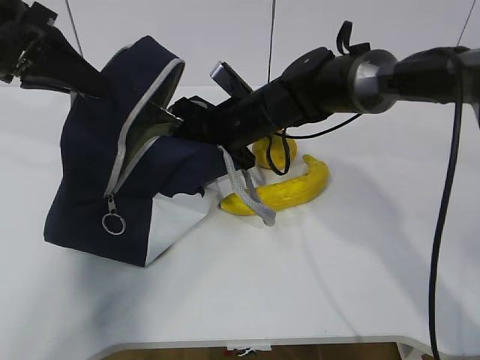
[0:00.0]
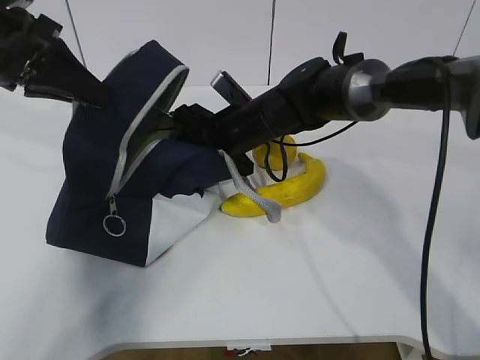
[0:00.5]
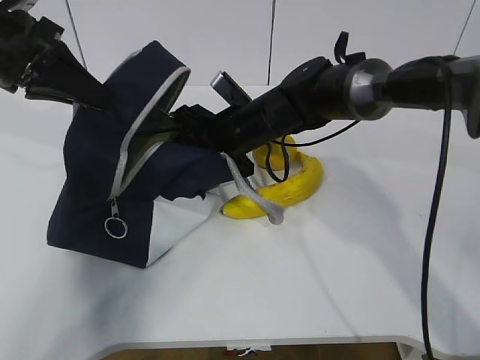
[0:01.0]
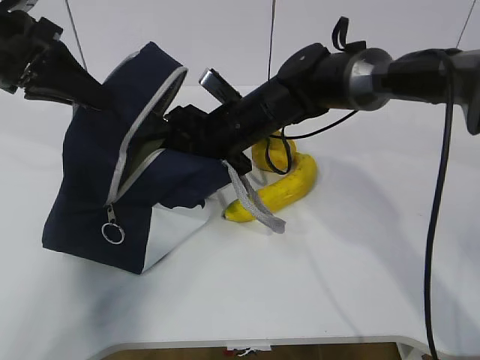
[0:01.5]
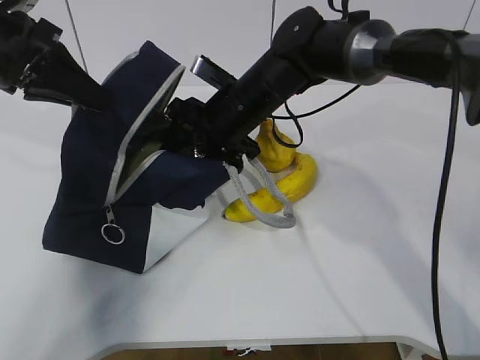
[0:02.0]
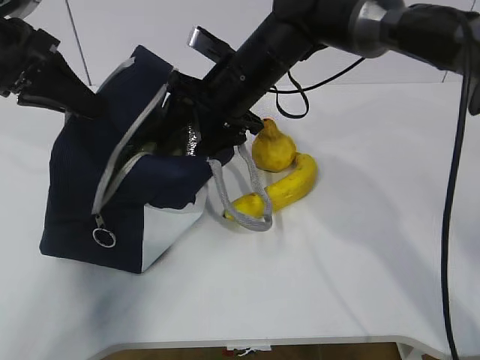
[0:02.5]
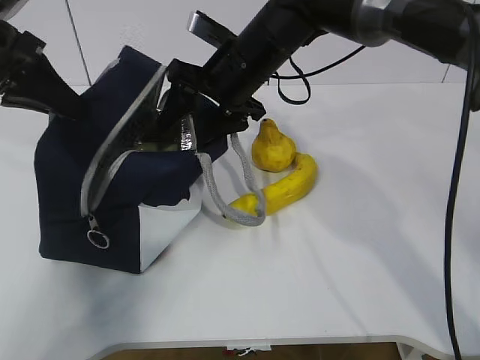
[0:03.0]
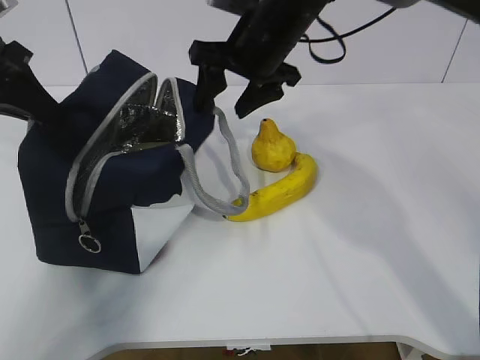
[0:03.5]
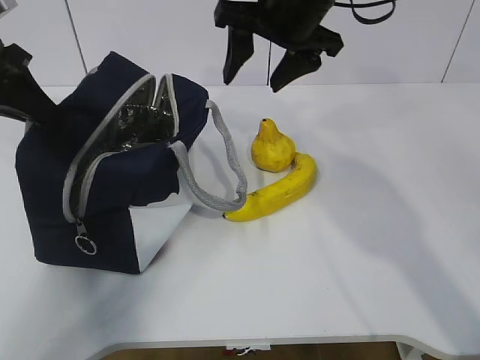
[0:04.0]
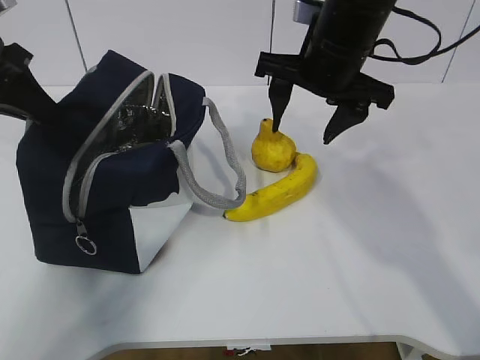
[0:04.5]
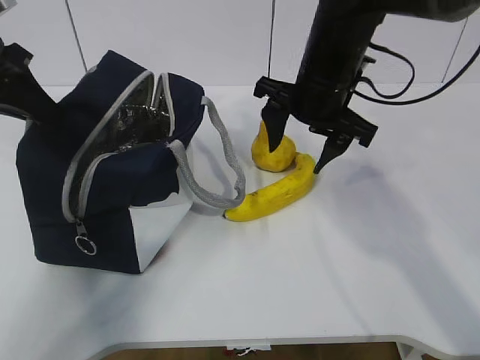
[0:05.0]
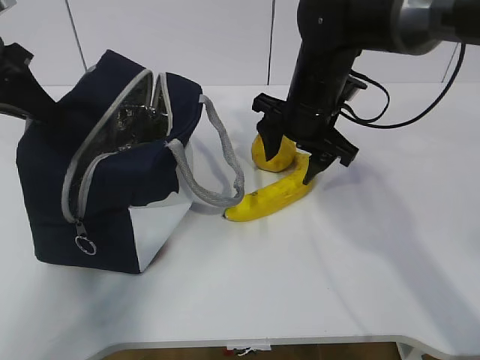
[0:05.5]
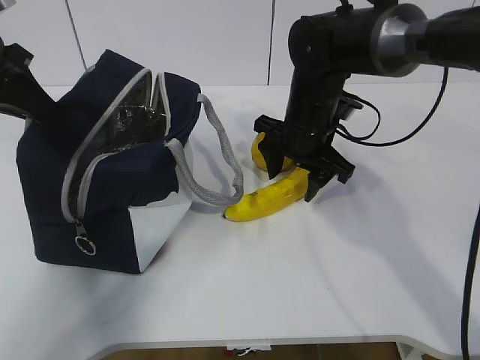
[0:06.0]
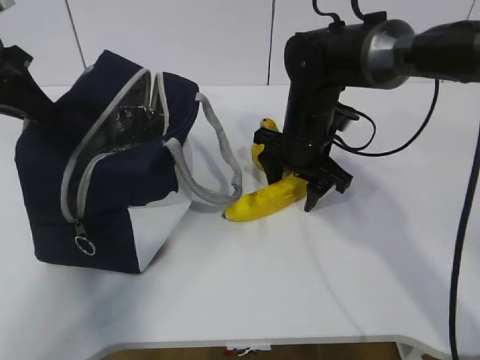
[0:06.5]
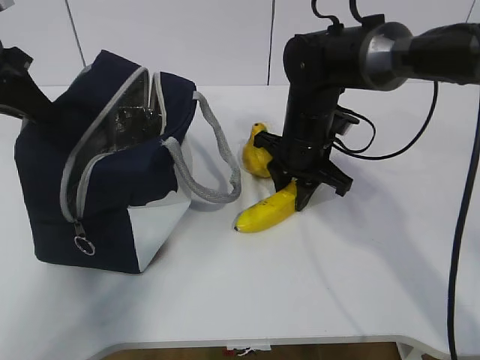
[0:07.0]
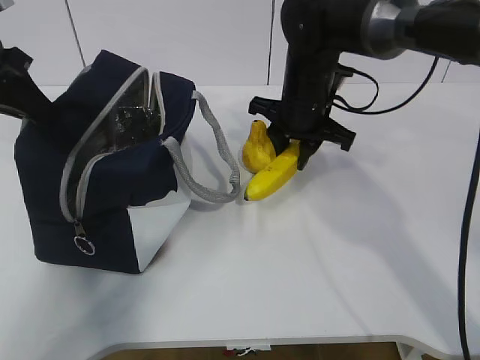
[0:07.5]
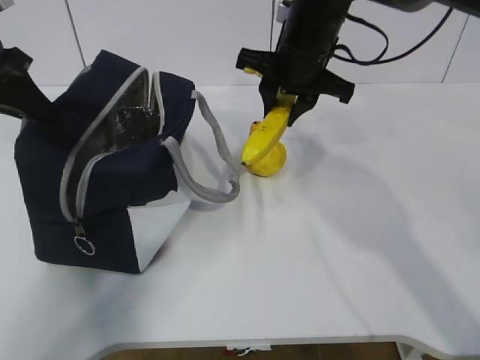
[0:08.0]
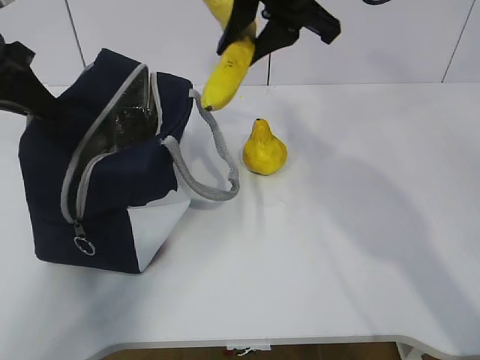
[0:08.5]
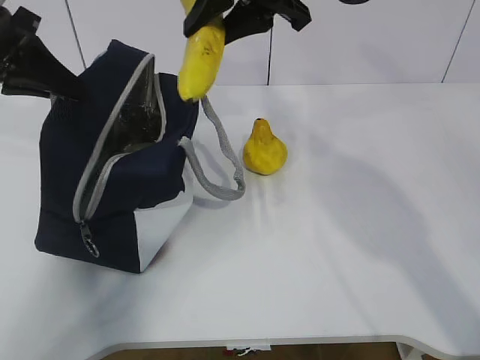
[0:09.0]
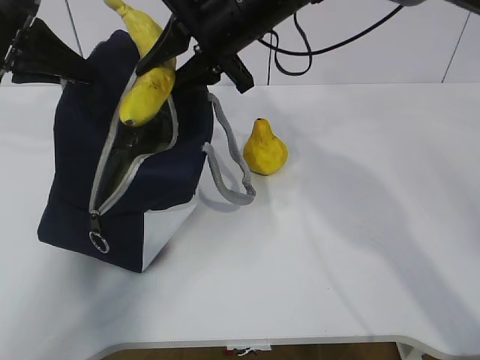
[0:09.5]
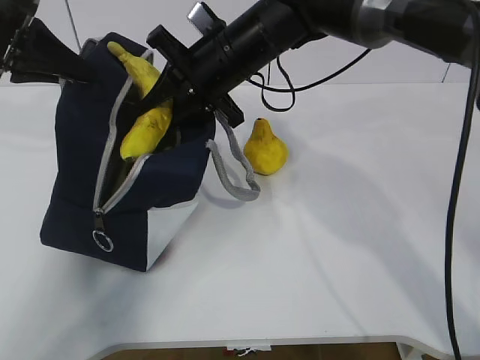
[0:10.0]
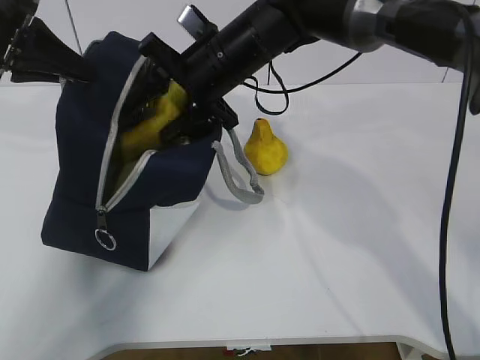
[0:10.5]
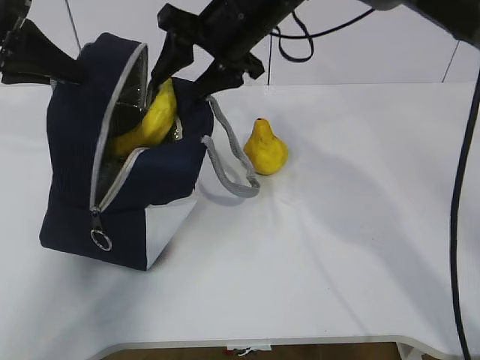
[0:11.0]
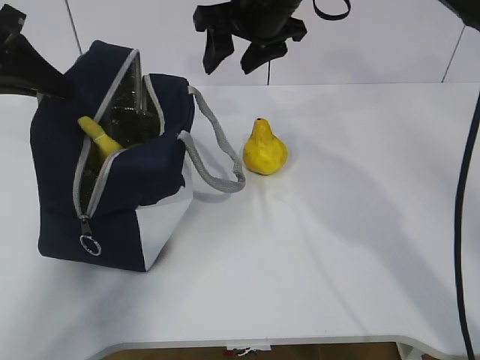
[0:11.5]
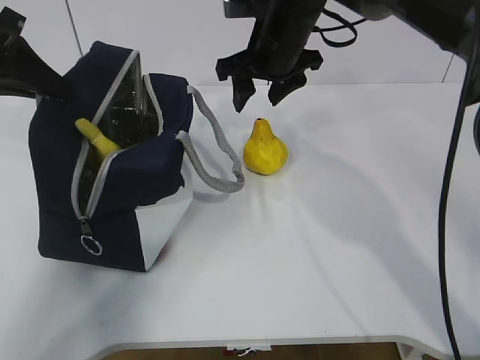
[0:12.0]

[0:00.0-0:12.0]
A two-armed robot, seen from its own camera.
Step, 0:00.0 to 0:02.5: Grab the banana with your right hand.
Step, 0:03.0 to 0:06.5: Place it into the bag with your right hand.
Step, 0:07.0 to 0:08.0: Grab the pear with your right hand.
Step, 0:08.5 to 0:10.0: Secure the lunch bag with your left hand.
Step, 0:10.5 to 0:11.0: Grab the lunch bag with your right hand.
0:02.0 to 0:04.0: The right gripper travels upward by some 15 cm.
0:04.0 to 0:06.0: The right gripper travels downward by about 15 cm.
0:06.0 to 0:08.0: The right gripper is displaced upward by approximately 10 cm, and closes its fingers.
0:08.0 to 0:10.0: The right gripper travels to the left by about 10 cm, and moves some 10 cm upward and comes back.
0:10.0 to 0:12.0: The right gripper travels to the right by roughly 5 cm, and opens.

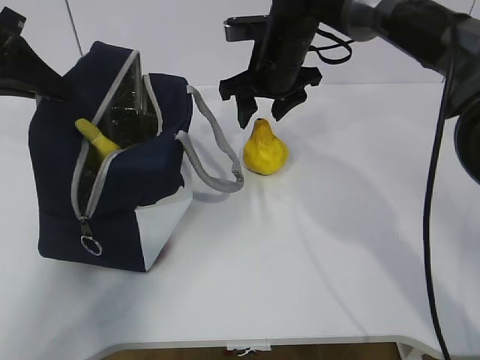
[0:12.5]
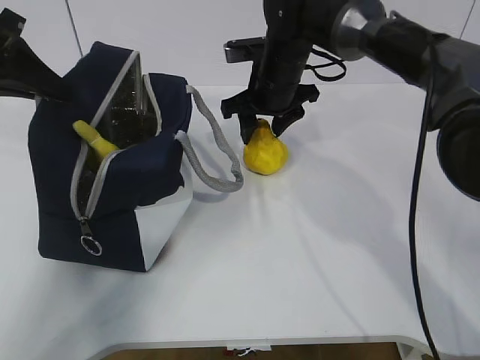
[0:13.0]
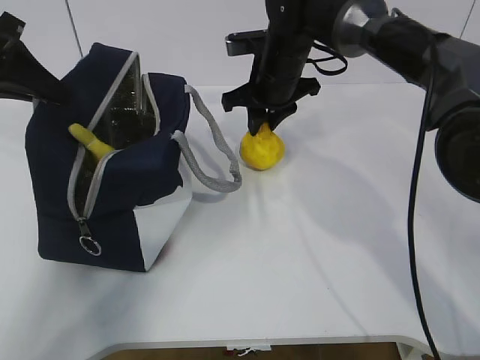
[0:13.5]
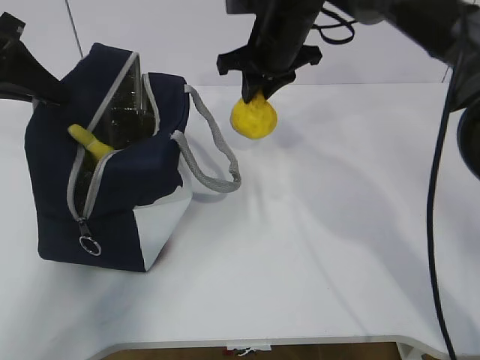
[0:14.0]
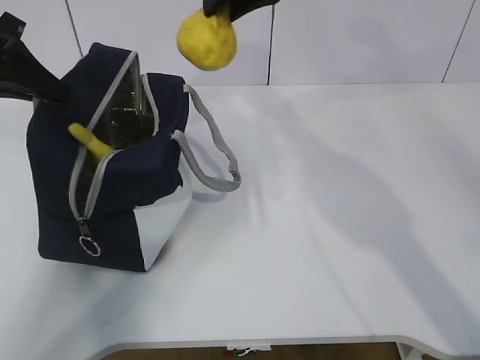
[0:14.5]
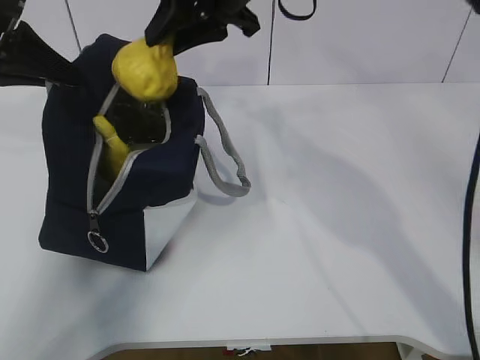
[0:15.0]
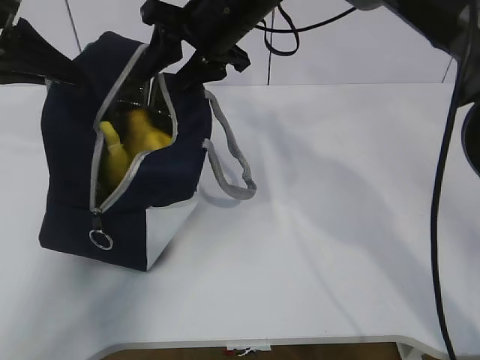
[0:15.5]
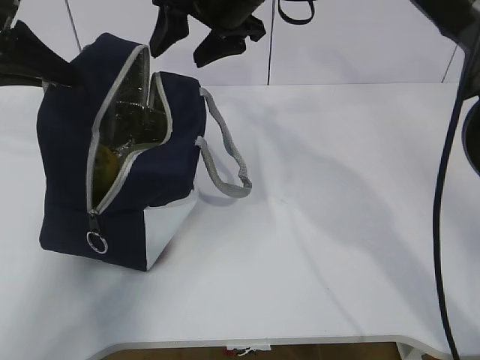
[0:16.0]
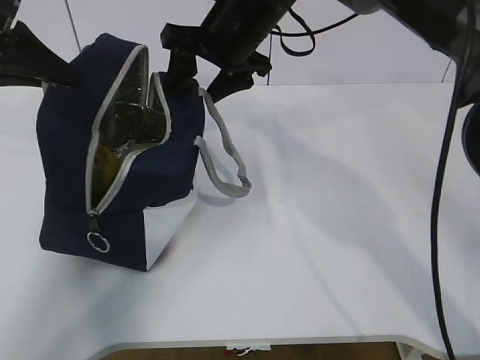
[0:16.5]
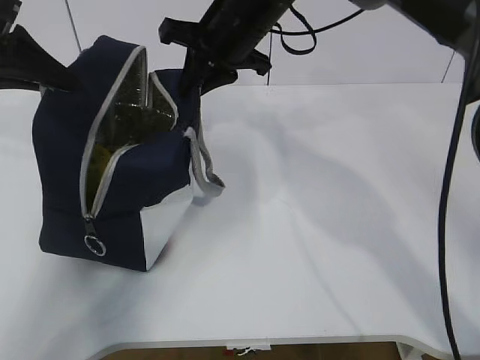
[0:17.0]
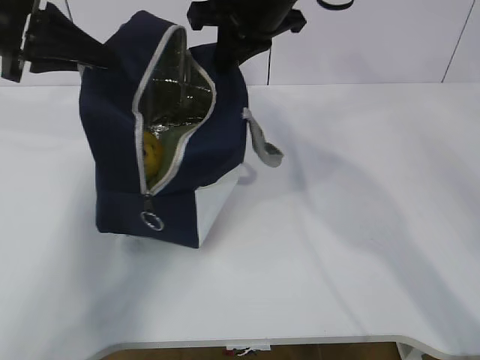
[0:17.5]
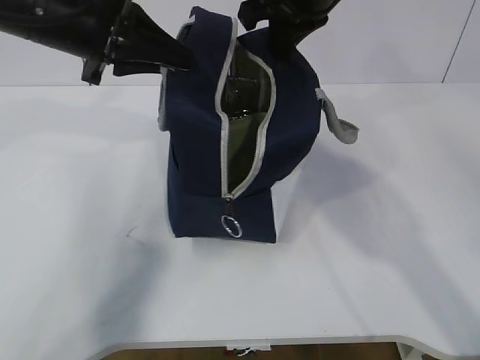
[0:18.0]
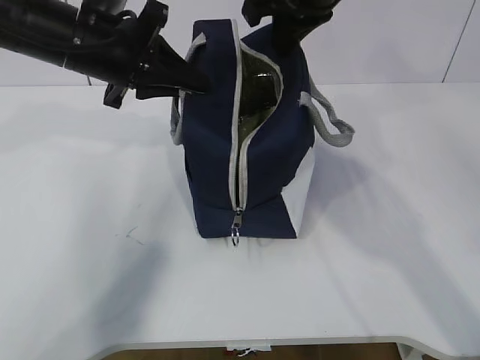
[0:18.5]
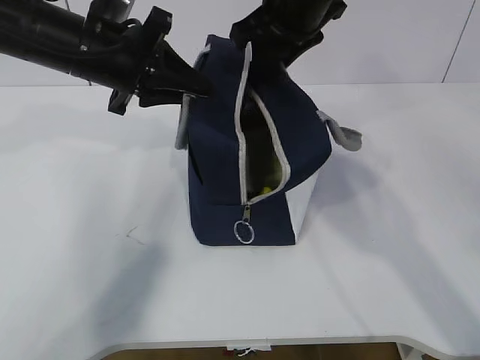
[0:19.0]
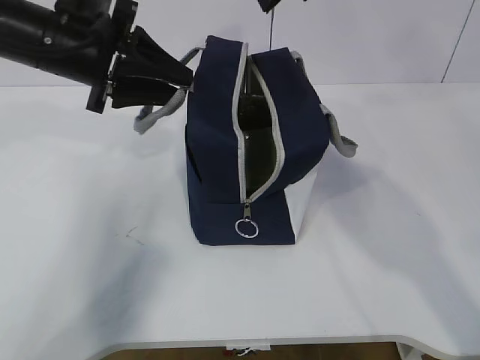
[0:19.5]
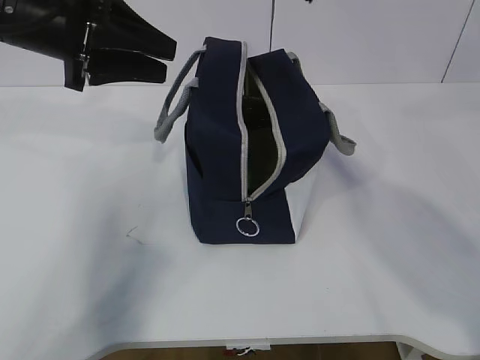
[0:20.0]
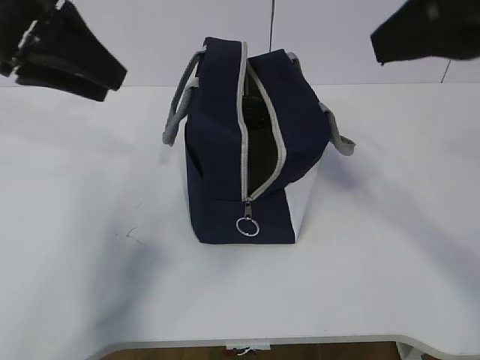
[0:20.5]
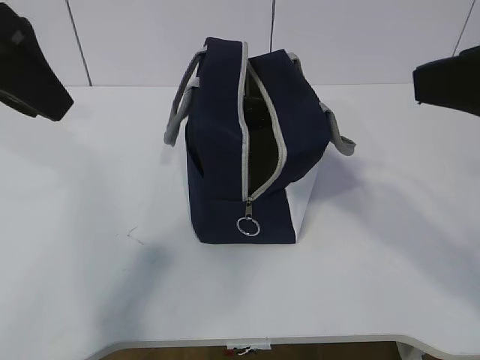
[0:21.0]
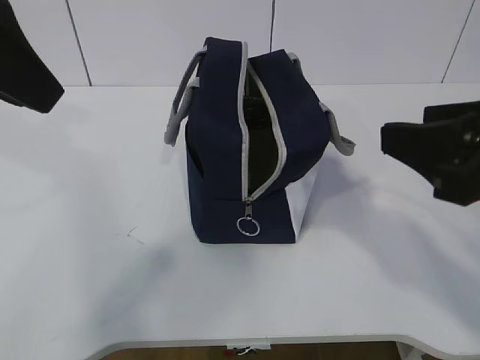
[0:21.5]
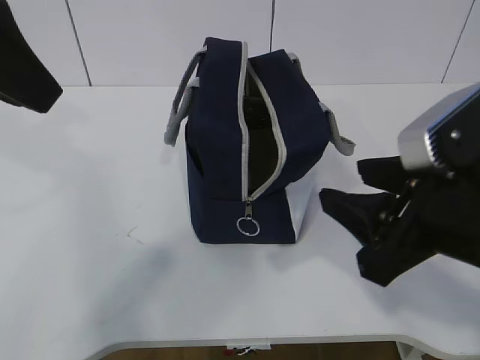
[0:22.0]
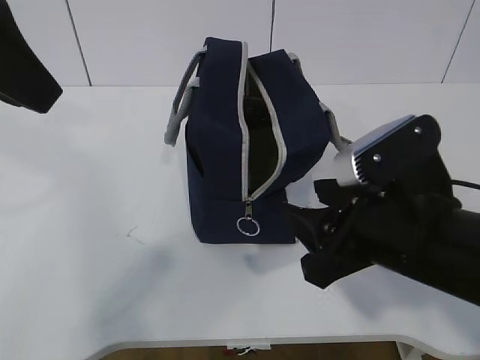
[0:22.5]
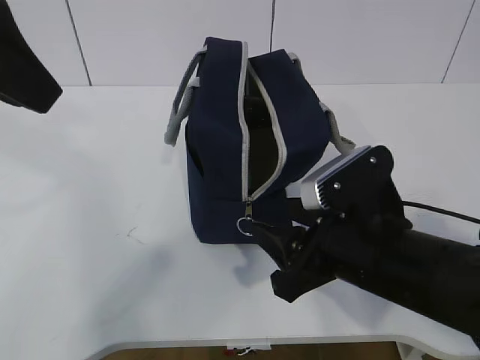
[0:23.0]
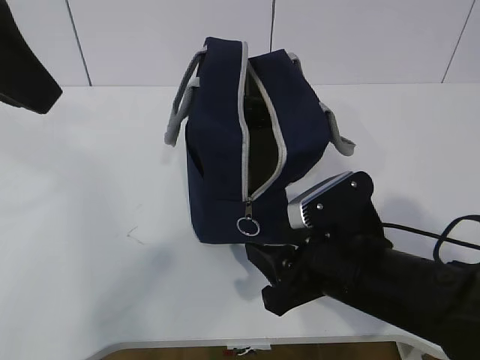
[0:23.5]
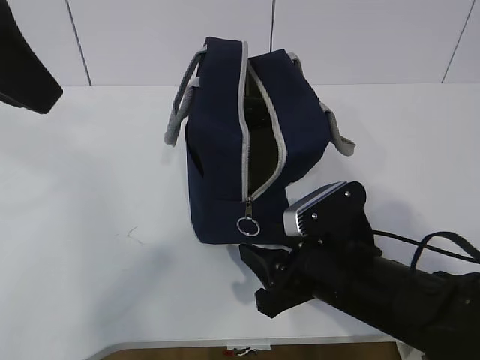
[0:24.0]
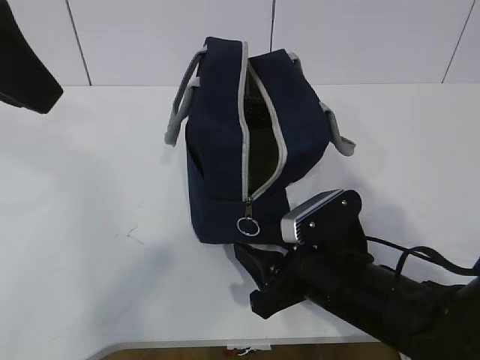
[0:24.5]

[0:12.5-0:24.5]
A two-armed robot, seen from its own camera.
0:12.5 to 0:14.5: The right gripper shifts some 15 cm upward, and closes up.
0:14.5 to 0:16.5: The right gripper is displaced downward by about 10 cm, and opens up.
0:16.5 to 0:18.5: The left gripper moves to the right, some 15 cm, while the right gripper moves upward and to the right, roughly 10 cm, and closes its fingers.
0:18.5 to 0:20.5: The right gripper goes about 20 cm backward and to the right, and opens its fingers. The left gripper moves to the left and upward, roughly 10 cm, and opens.
0:20.5 to 0:22.5: The left gripper shifts some 10 cm backward and upward. Meanwhile the right gripper shifts about 20 cm downward.
0:22.5 to 0:24.5: The right gripper heads downward, covering approximately 10 cm.

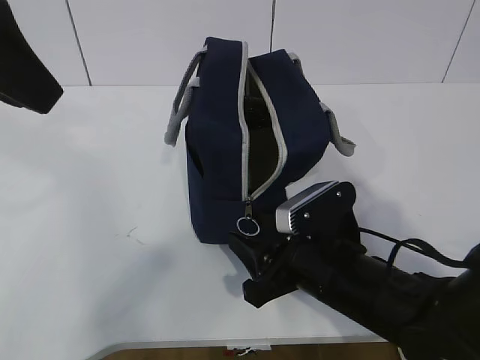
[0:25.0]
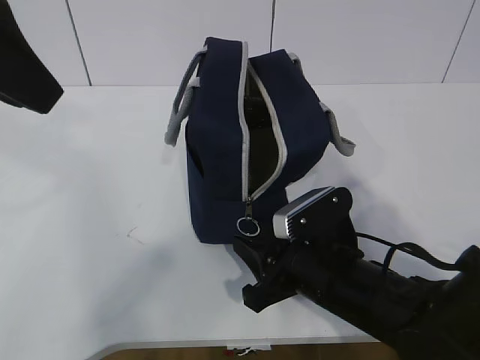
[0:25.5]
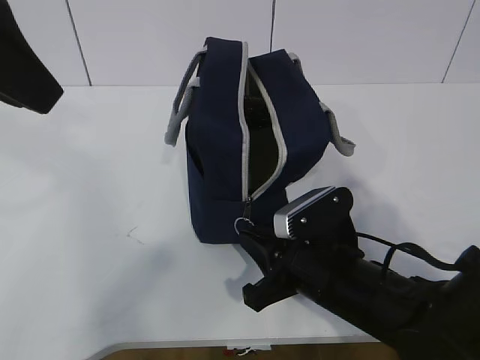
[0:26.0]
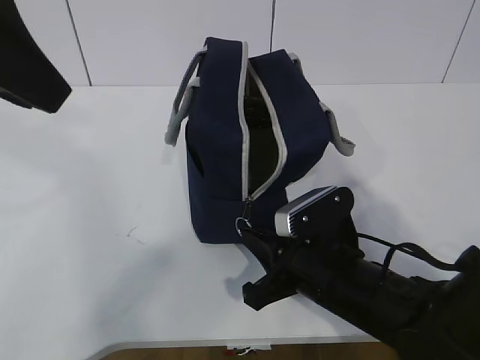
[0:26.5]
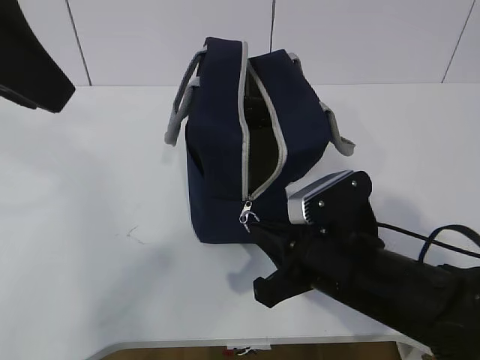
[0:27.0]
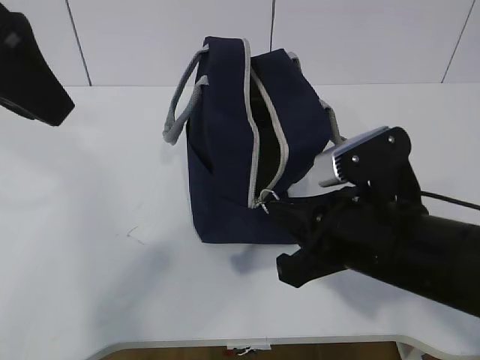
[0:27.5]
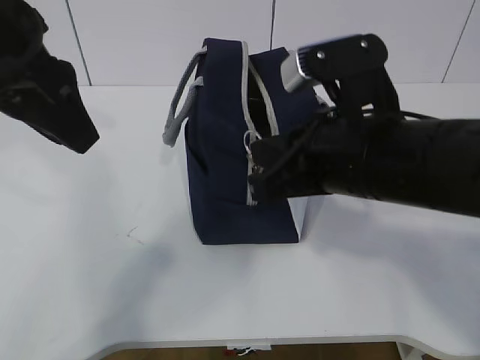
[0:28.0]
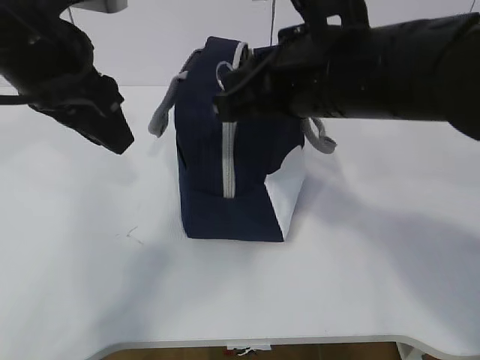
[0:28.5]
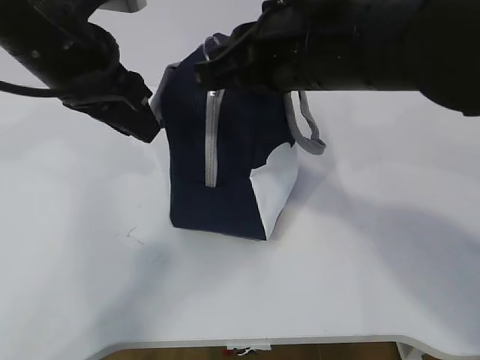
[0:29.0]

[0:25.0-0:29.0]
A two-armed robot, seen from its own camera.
Step, 0:25.5 to 0:28.0: Pull the zipper with your right hand.
0:25.0 to 0:27.0: The right gripper closes its fingers.
0:27.0 to 0:29.0: The left gripper goes about 15 cm forward and downward. The right gripper is displaced upward by roughly 20 cm.
